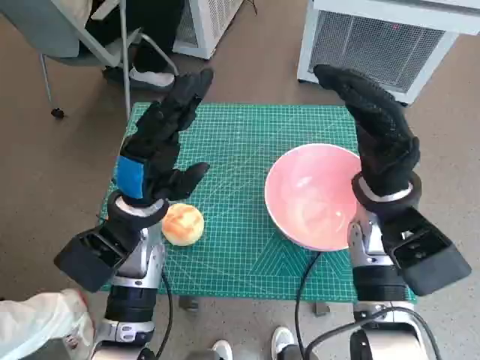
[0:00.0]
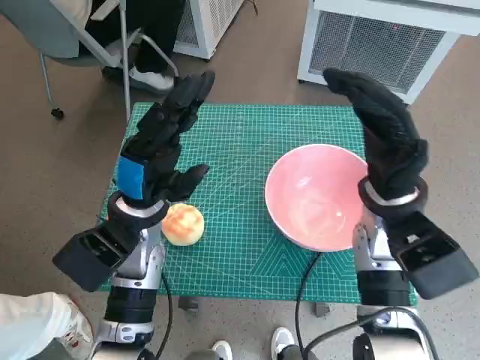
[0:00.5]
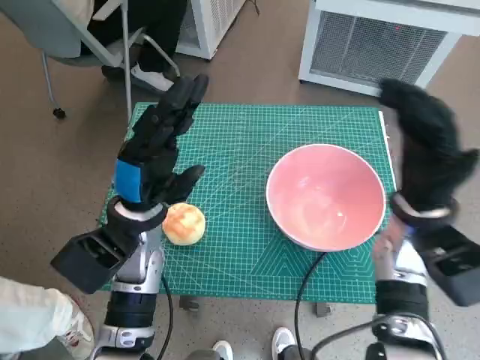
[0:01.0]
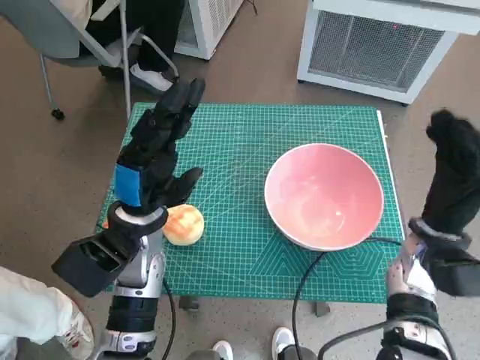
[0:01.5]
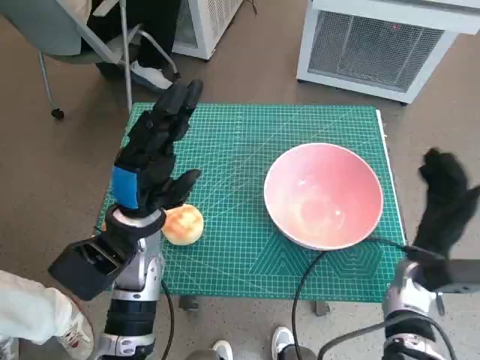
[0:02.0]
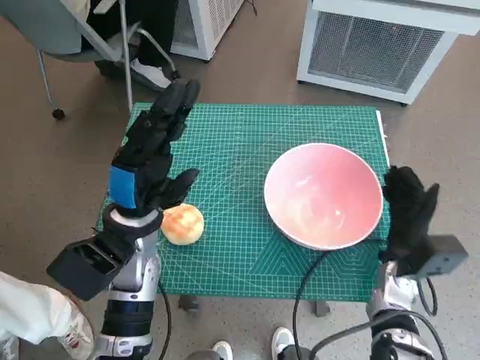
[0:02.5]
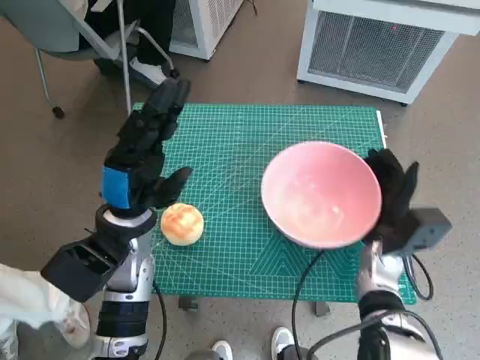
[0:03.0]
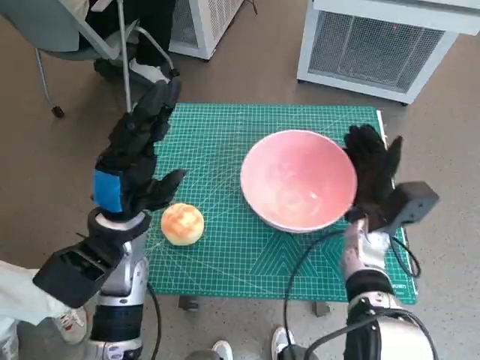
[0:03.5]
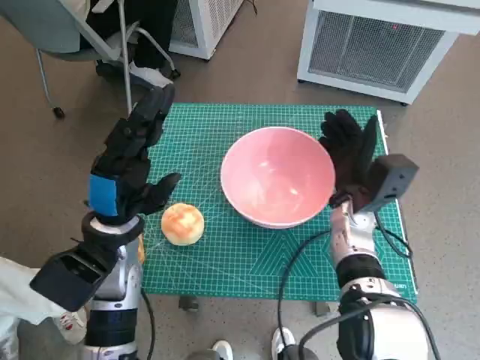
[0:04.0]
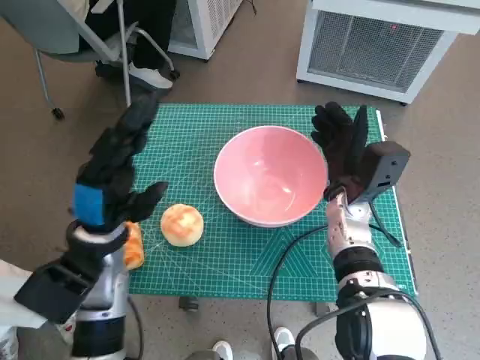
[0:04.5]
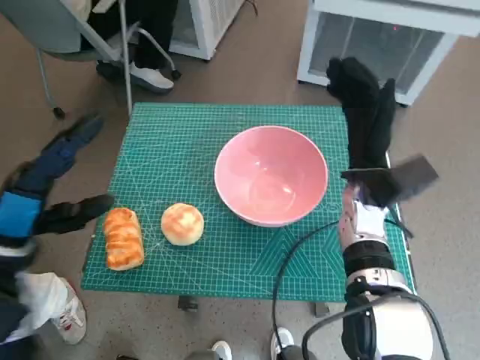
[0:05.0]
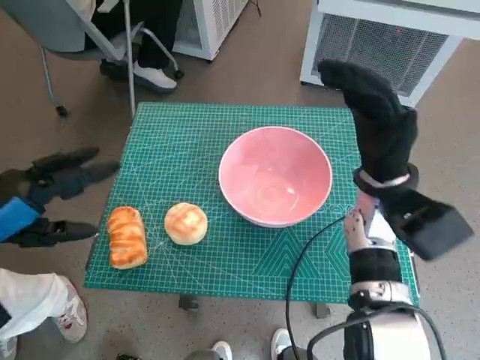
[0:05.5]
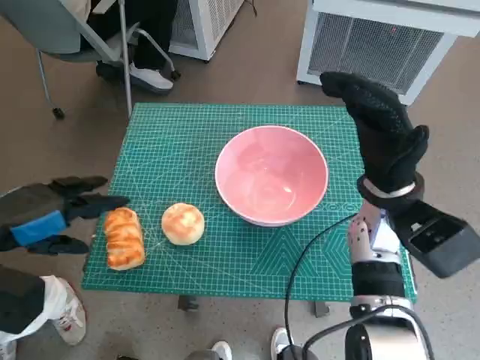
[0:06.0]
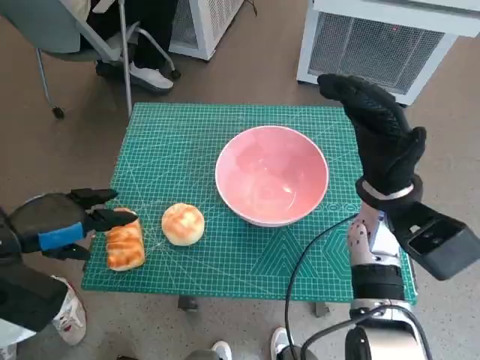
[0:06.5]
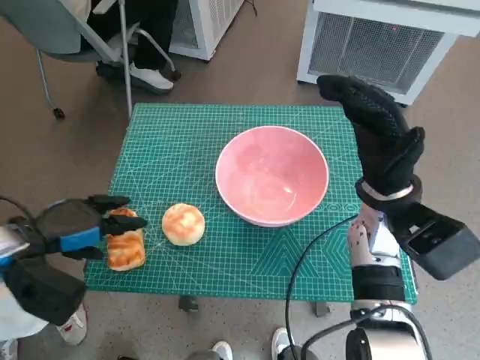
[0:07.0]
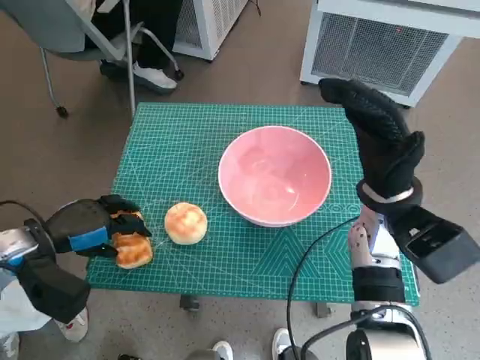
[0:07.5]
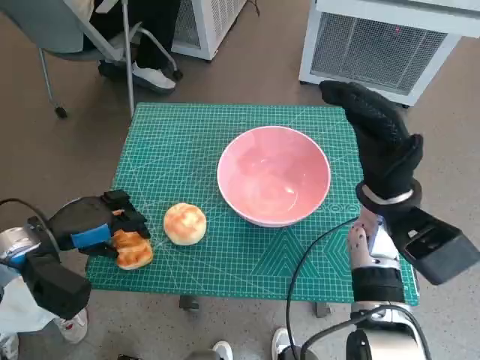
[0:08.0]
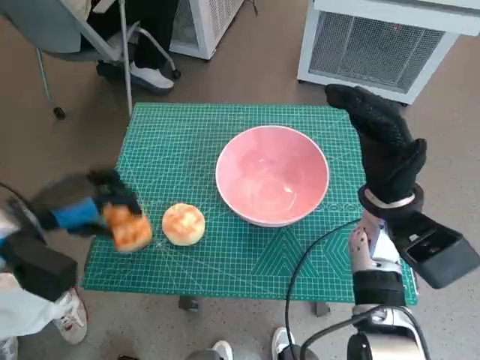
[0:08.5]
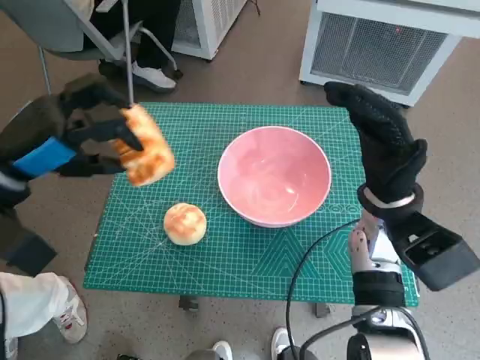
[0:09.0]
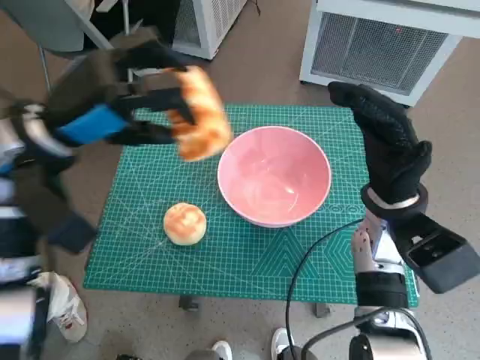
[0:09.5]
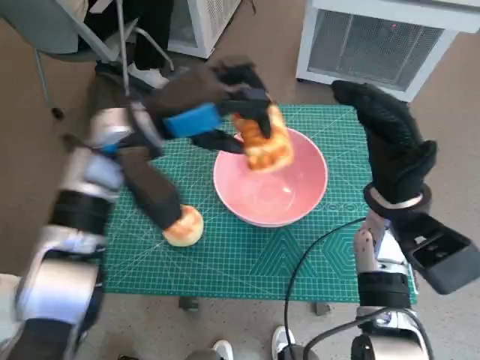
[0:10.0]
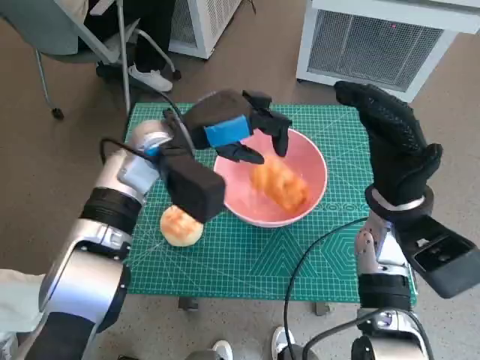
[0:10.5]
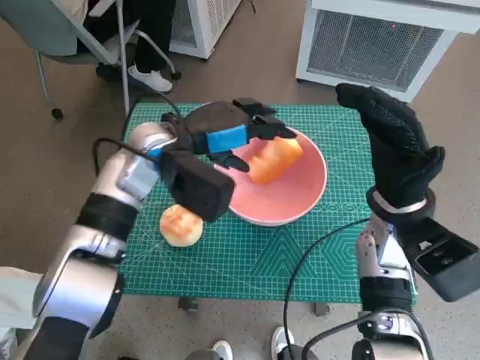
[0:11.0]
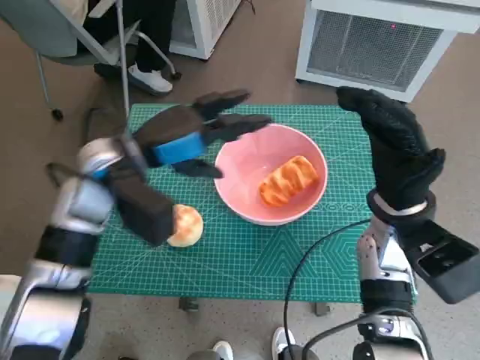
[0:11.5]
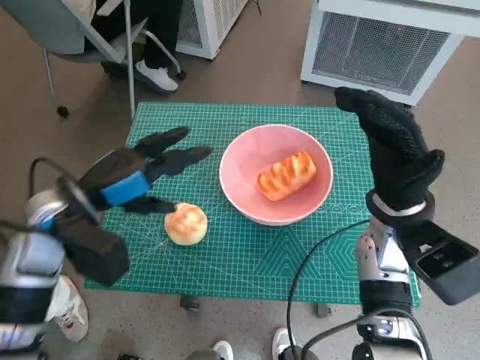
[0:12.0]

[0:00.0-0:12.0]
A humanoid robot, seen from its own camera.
Task of the whole recording: Push the bowl to the center of the table and put the bread into the bowl.
Step, 0.0 to 4.5 s: Move the pink bowl to the center of table with right hand.
Step, 5.0 to 8.0 s: Grasp the long bread with left hand.
Step, 8.5 to 11.0 s: Place the long bread in pink bowl with left hand.
2.0 to 4.0 s: The right hand shifts approximately 10 cm to the left and forward.
4.0 to 6.0 s: The right hand is displaced upward by roughly 10 cm. The left hand travels to the left and upward by approximately 15 cm.
6.0 to 8.0 s: The left hand heads downward, covering about 10 cm.
8.0 to 10.0 s: The left hand travels to the right, upward and forward by roughly 25 cm.
10.0 to 12.0 s: The left hand is displaced to the left, backward and downward by about 10 cm.

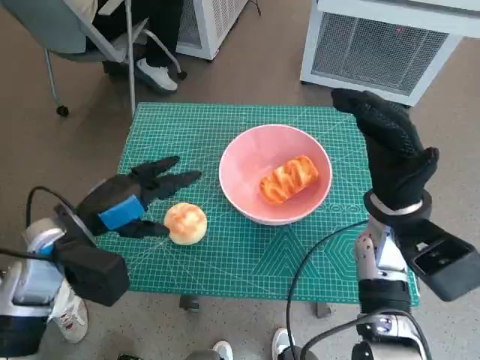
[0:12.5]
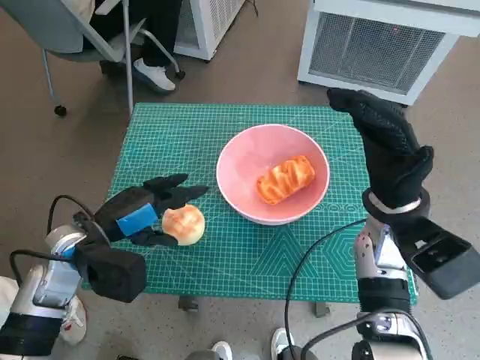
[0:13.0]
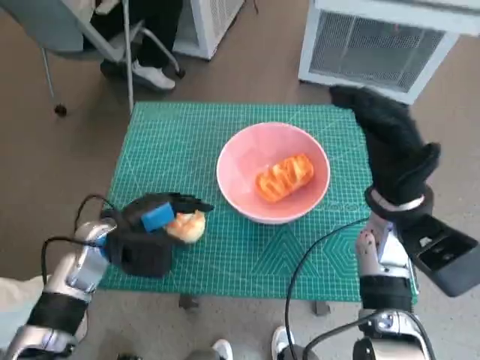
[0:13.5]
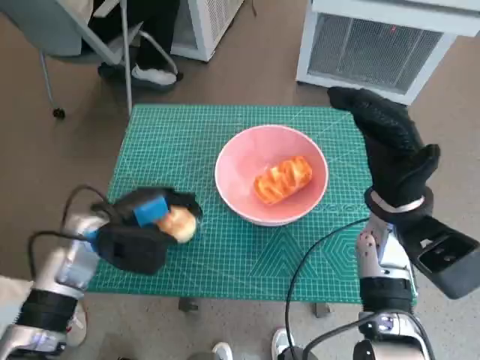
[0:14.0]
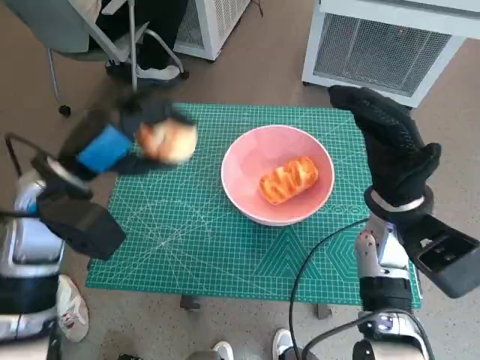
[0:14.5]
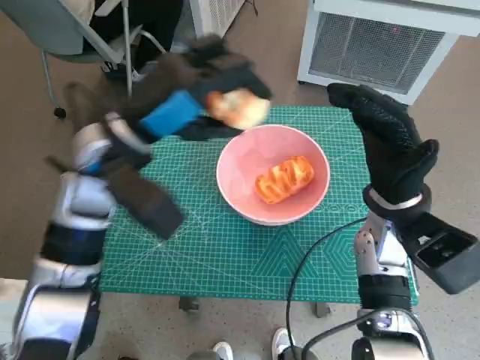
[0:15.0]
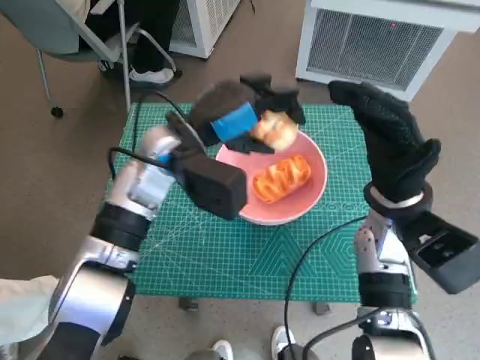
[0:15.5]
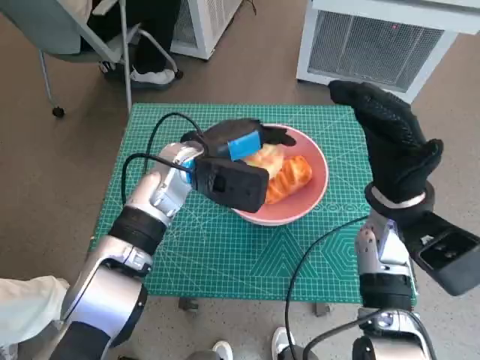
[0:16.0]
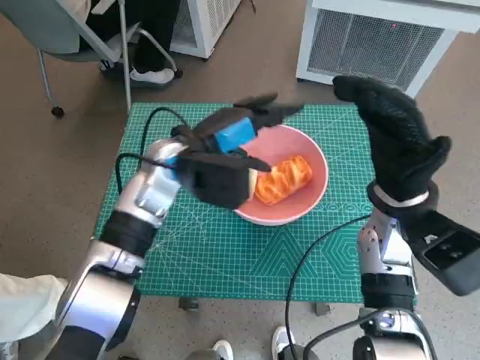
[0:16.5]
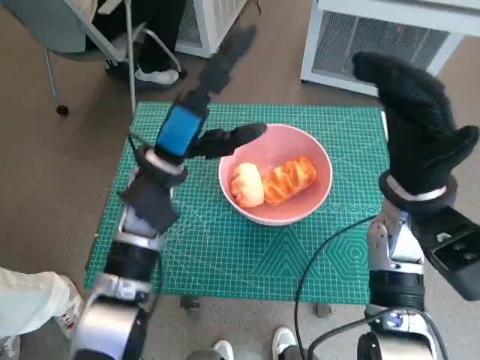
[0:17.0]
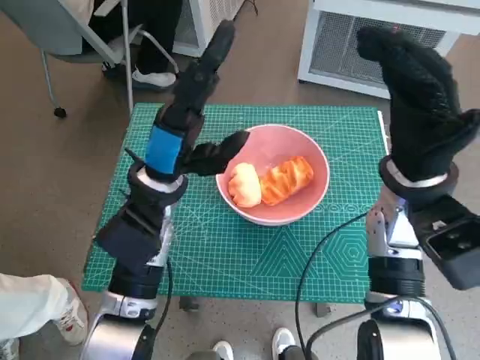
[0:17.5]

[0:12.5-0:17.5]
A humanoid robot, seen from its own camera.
Task of the whole recording: Push the bowl to the center of the table and put the bread into the bowl.
Step, 14.0 to 16.5 s: Place the round bread in pink bowl with left hand.
12.5 to 15.0 s: The left hand goes roughly 15 cm upward, to the right and forward.
15.0 to 17.5 s: The left hand moves downward, about 5 cm.

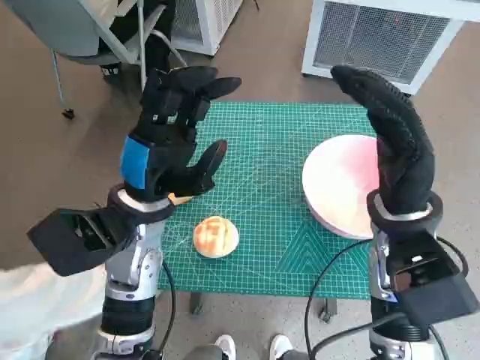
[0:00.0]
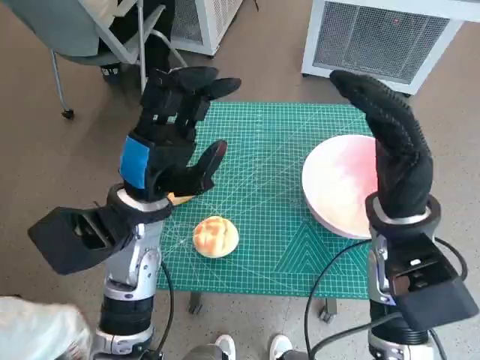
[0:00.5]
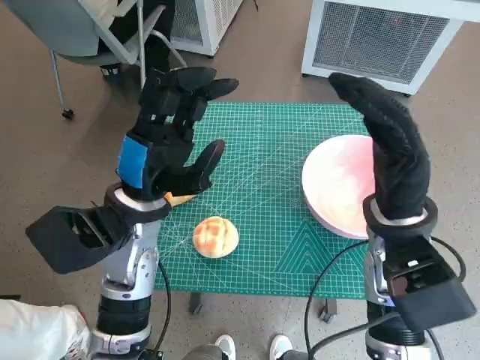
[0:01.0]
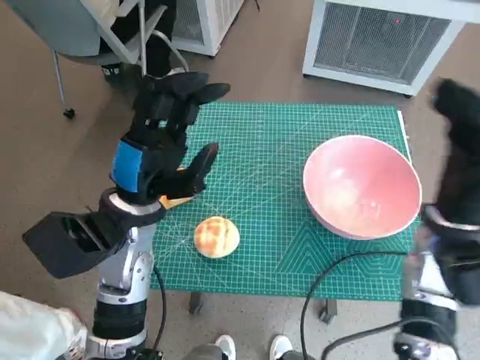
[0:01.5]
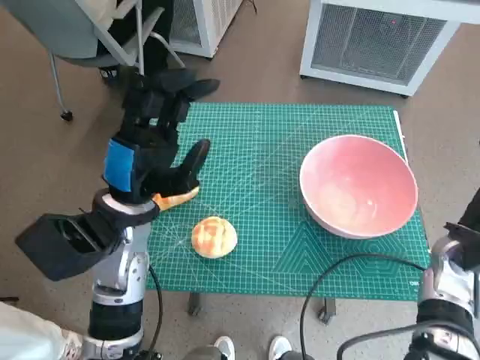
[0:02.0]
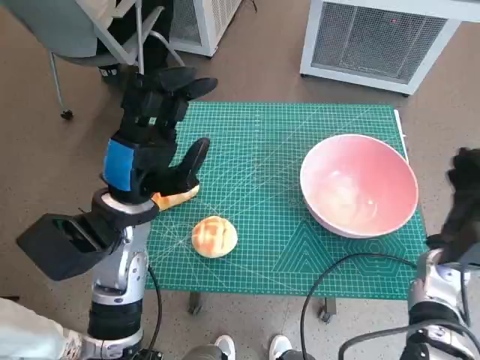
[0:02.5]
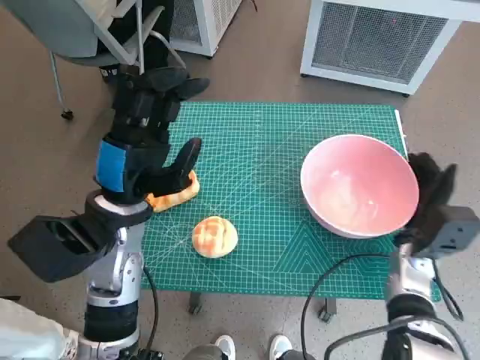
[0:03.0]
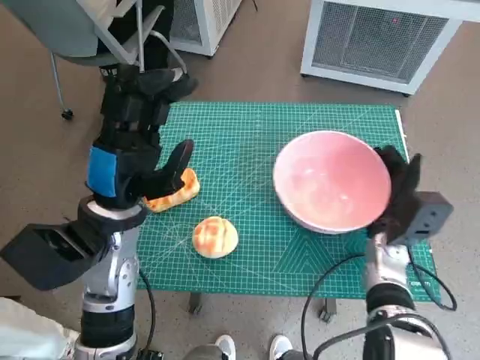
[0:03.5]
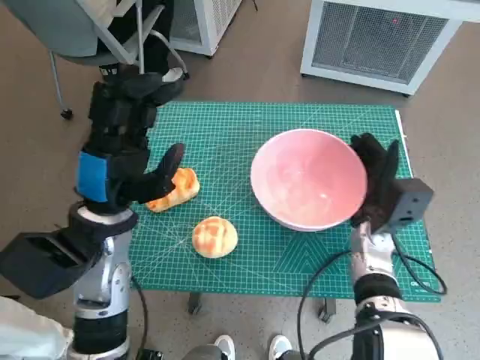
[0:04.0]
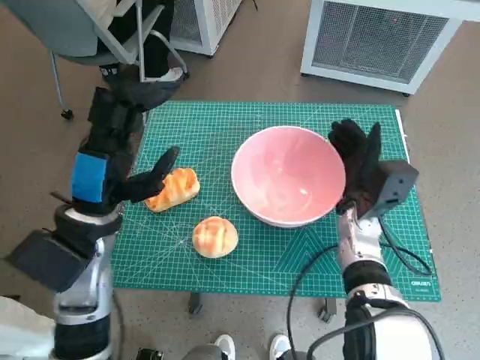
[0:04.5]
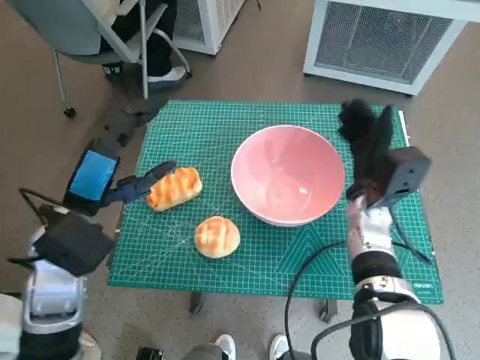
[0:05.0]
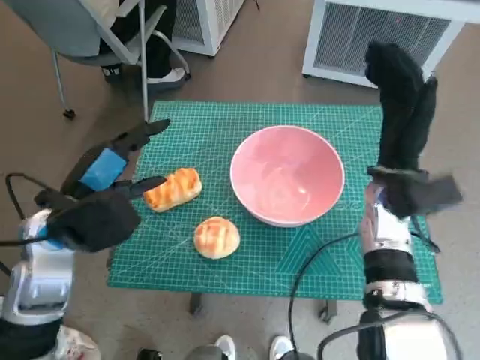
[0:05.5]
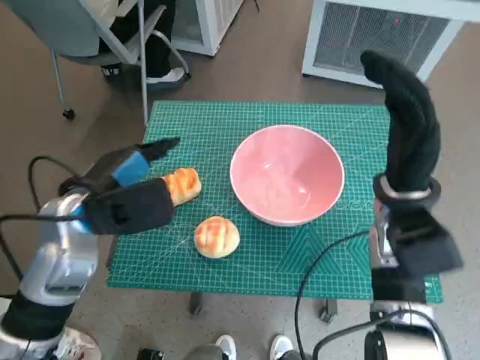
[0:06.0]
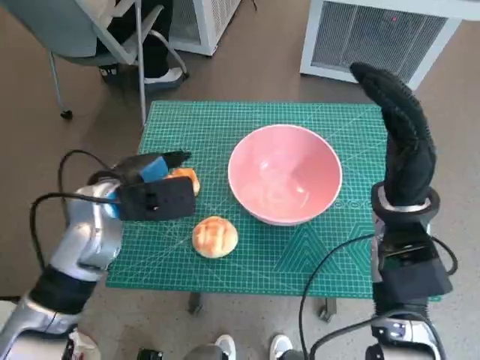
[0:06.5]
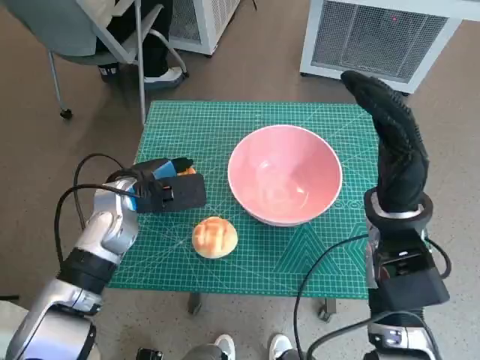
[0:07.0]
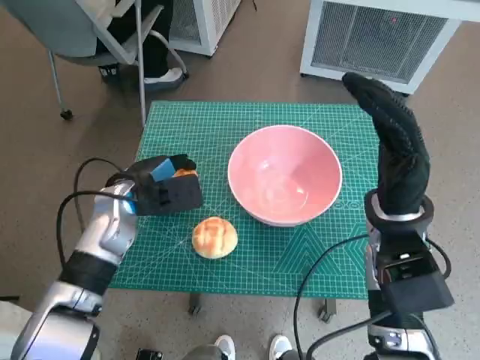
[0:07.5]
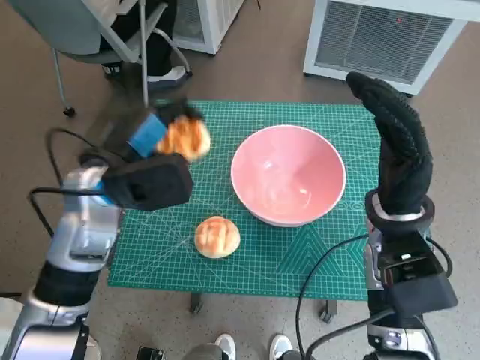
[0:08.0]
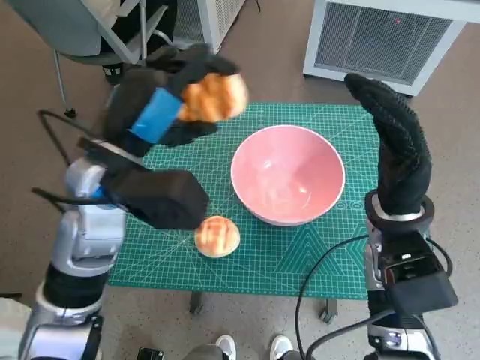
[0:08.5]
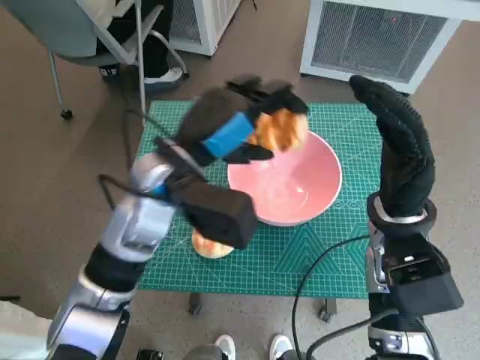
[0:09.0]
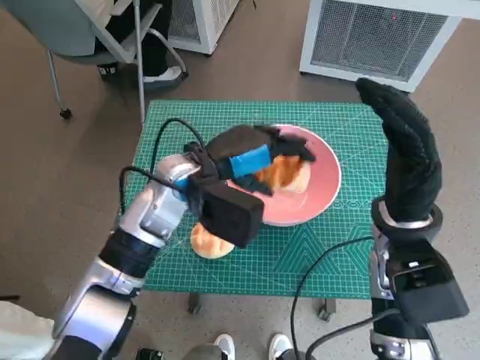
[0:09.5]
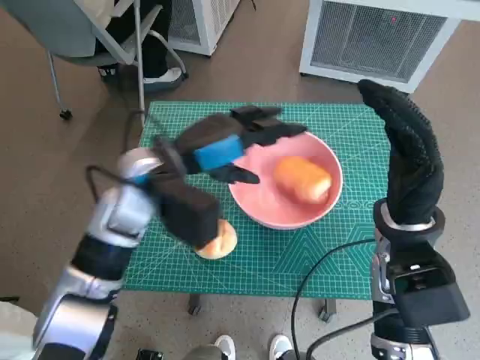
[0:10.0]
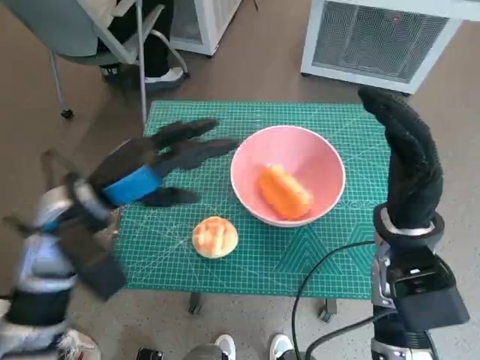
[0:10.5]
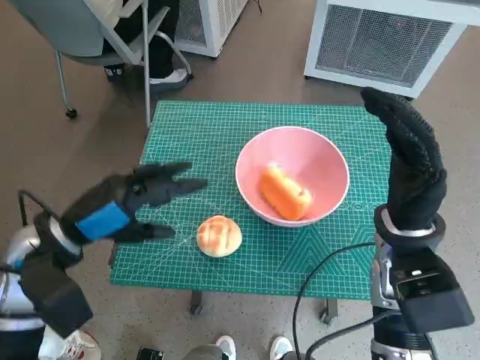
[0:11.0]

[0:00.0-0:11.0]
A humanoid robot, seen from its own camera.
Task of the whole recording: Push the bowl to the center of the table and put the bread into the bowl.
Step, 0.0 to 5.0 s: Move the pink bowl to the center of table with right hand.
Step, 5.5 to 7.0 s: Grasp the long bread with left hand.
Step, 7.5 to 9.5 s: Place the long bread in pink bowl with left hand.
2.0 to 3.5 s: The right hand goes about 10 cm to the left and downward.
3.5 to 5.5 s: The left hand moves to the left, approximately 5 cm. The right hand shifts approximately 10 cm upward.
5.5 to 7.5 s: The right hand shifts about 5 cm backward; the left hand is displaced forward and downward by approximately 10 cm.
7.5 to 9.0 s: The left hand goes some 15 cm upward and to the right.
9.0 to 11.0 s: The left hand travels to the left and backward by approximately 15 cm.
